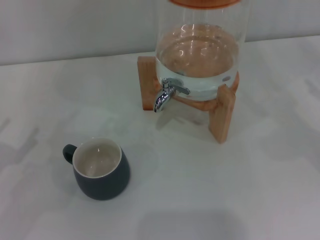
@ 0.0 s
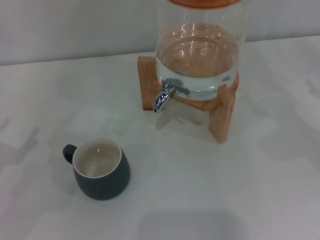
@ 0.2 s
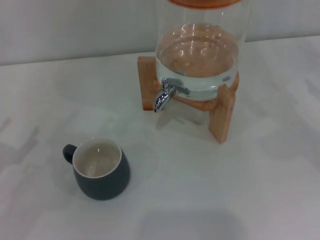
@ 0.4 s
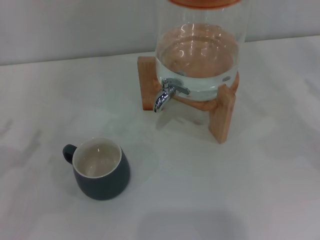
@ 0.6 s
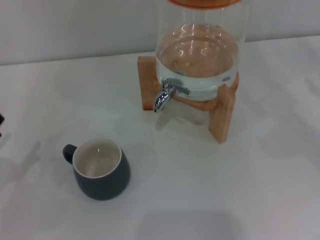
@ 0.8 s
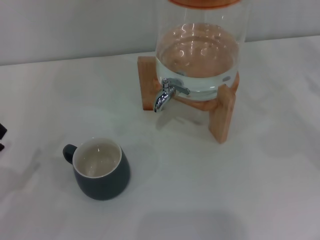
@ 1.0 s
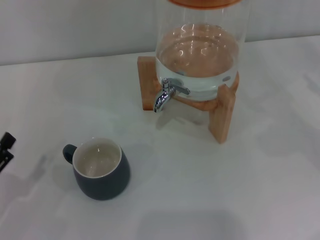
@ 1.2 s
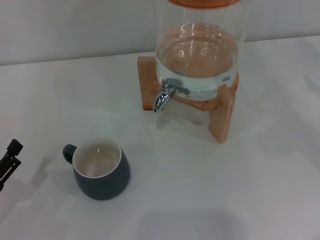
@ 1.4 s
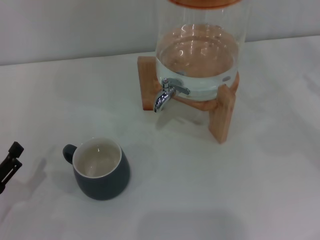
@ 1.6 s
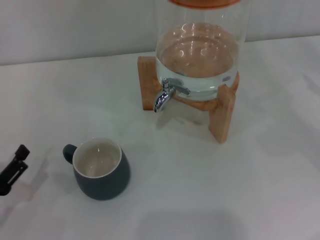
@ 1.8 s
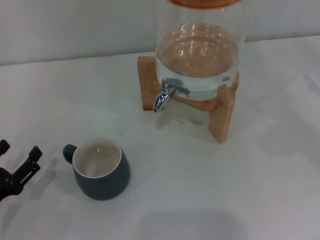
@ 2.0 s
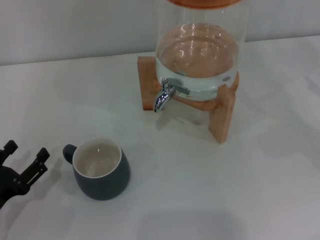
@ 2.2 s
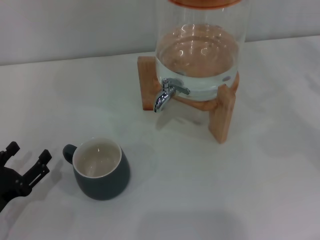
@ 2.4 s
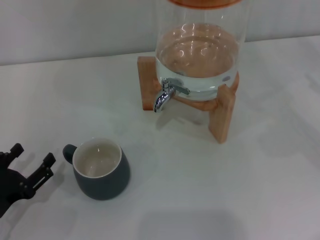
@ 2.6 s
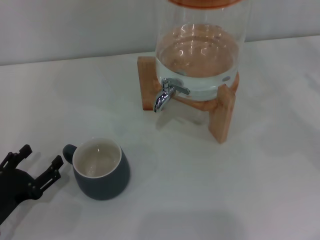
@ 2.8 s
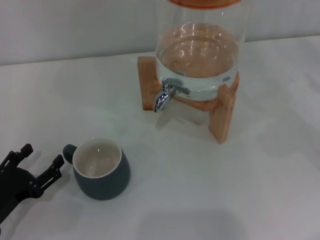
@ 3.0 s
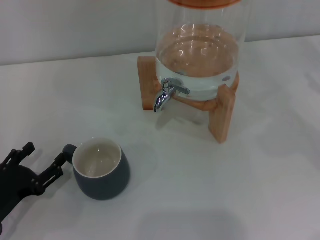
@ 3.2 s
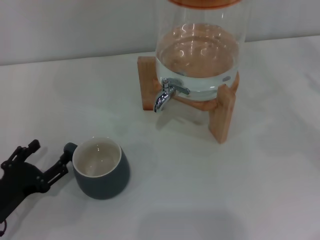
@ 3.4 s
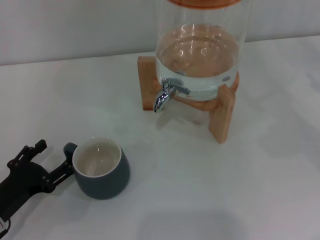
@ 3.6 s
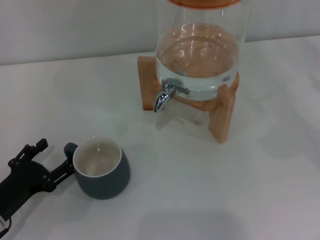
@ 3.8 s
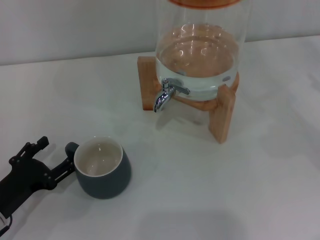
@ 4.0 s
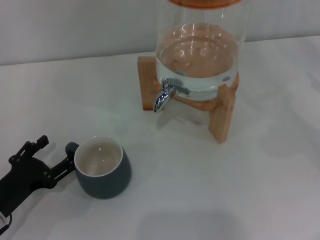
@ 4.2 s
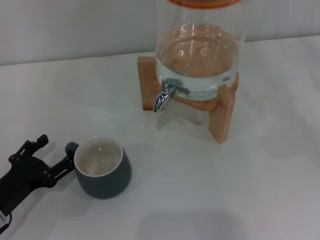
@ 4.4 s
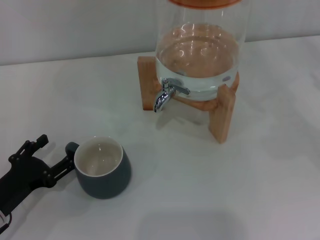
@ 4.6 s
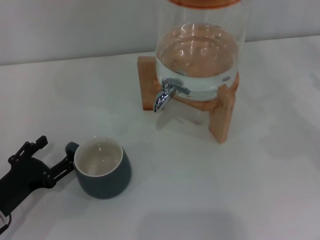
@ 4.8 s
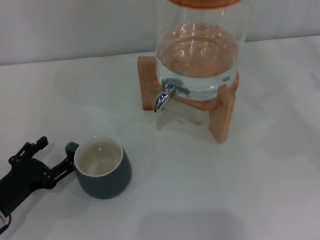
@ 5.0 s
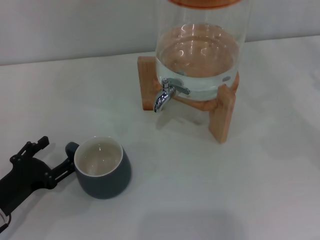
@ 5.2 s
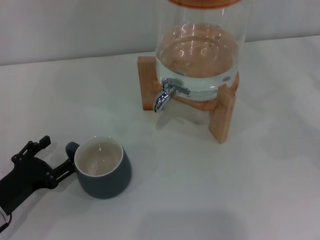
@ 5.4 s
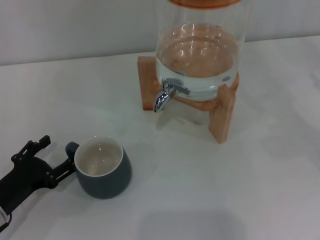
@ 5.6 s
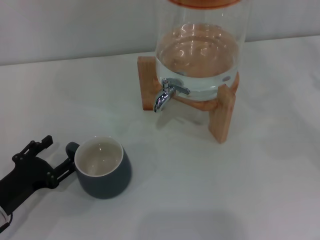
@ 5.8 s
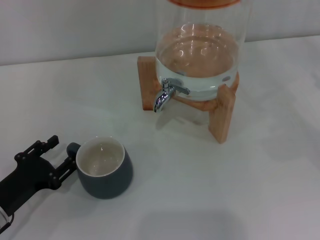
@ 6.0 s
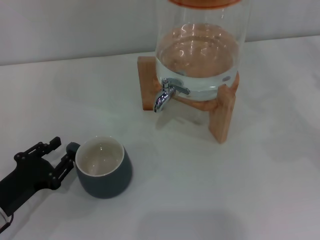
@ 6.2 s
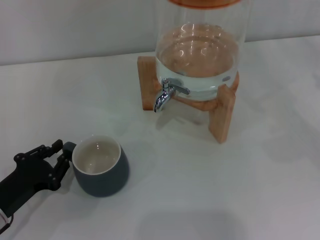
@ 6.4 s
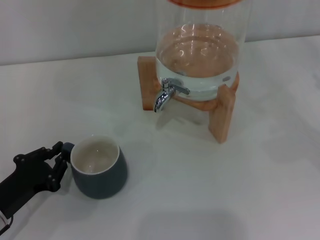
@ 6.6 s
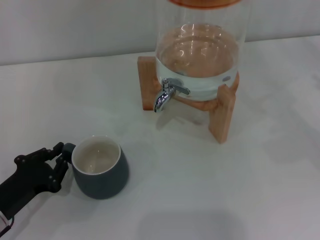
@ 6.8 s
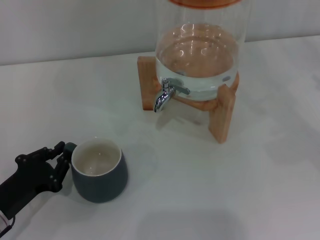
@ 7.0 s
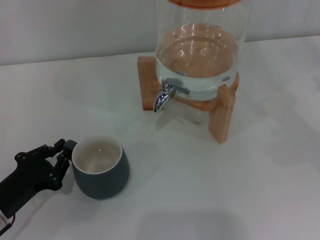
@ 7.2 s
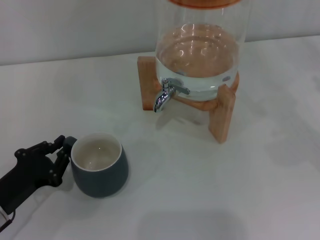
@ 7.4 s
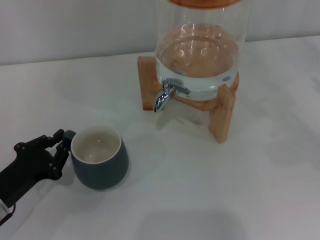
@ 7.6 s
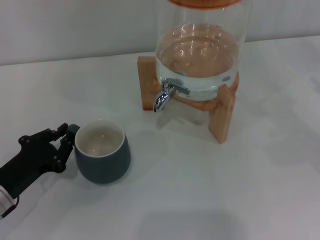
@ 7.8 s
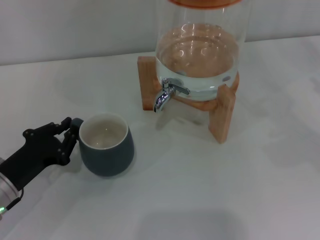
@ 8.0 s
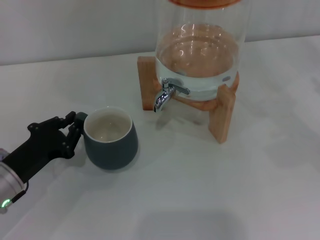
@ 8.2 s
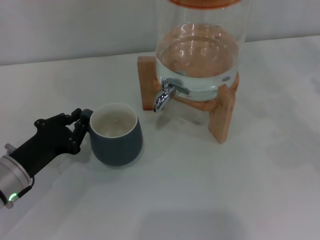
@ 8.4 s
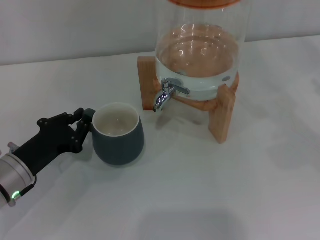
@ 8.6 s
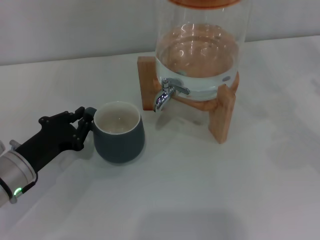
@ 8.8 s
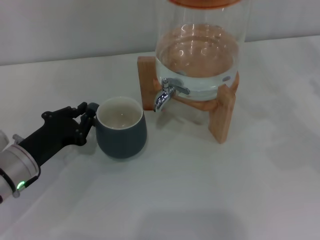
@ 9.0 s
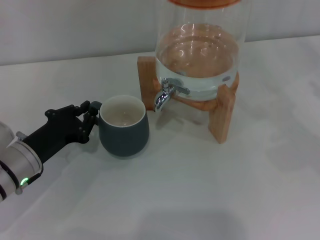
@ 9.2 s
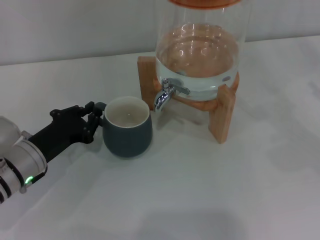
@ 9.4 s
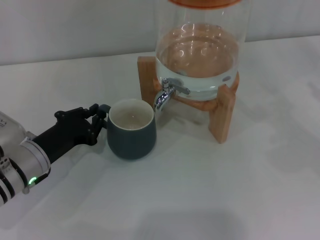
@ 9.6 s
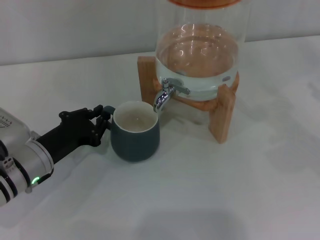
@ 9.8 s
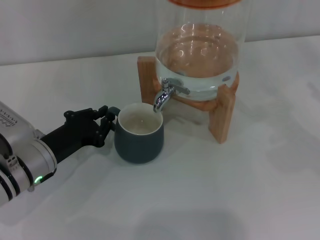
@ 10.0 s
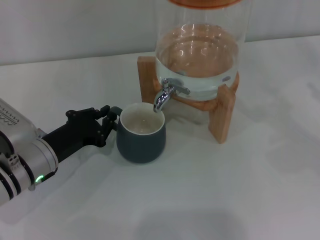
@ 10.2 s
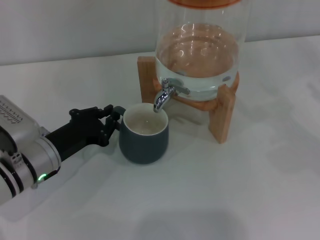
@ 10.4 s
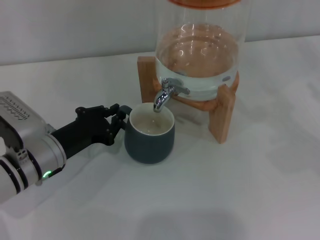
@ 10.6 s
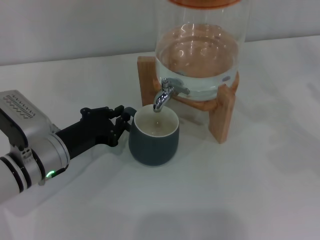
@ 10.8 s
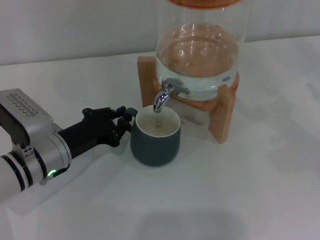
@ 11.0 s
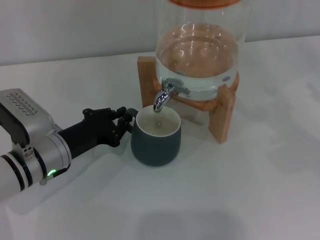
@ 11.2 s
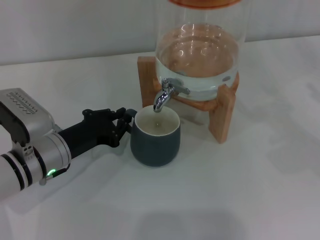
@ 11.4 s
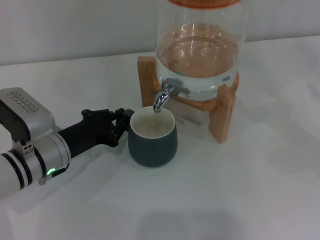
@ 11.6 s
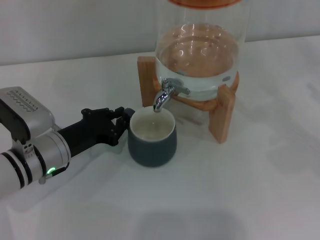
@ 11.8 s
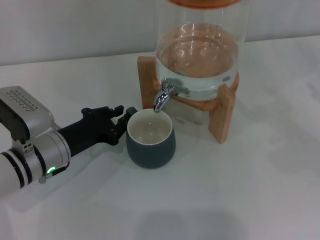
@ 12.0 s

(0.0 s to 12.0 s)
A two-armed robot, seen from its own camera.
Task of the whole recording: the left gripper pick up the black cup and place it horizontally under the faucet, the right gripper turn on the faucet to fill the cup, and then turn off the faucet.
0.0 s - 1.6 s: The left gripper goes about 10 cm downward and backward.
1.6 s - 3.0 s: The grippers move only a little.
3.0 s - 4.4 s: The grippers make only small movements.
4.4 s - 6.0 s: Both grippers stay put.
6.0 s - 7.6 s: The left gripper closes.
7.6 s - 9.0 s: The left gripper goes some 5 cm forward.
9.0 s - 12.0 s: The grippers stay close to where they were, moving slightly.

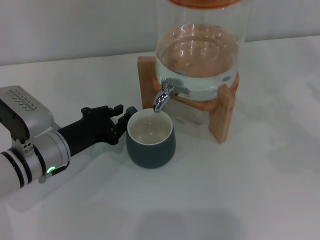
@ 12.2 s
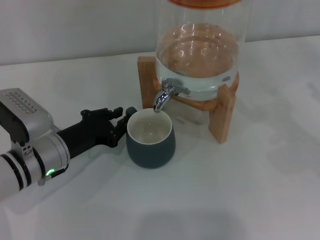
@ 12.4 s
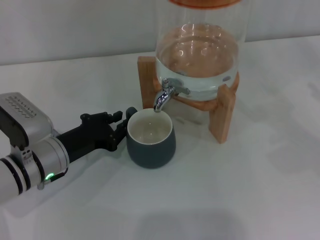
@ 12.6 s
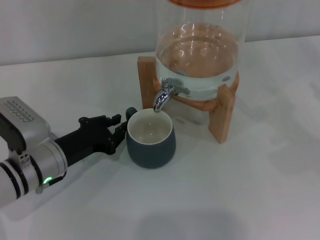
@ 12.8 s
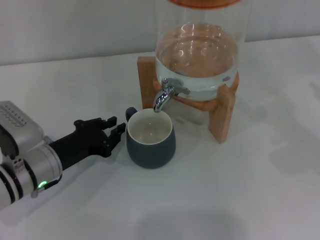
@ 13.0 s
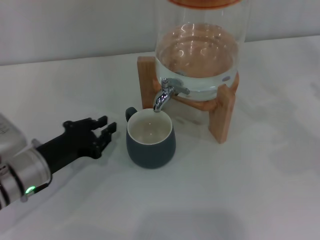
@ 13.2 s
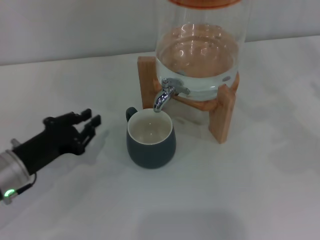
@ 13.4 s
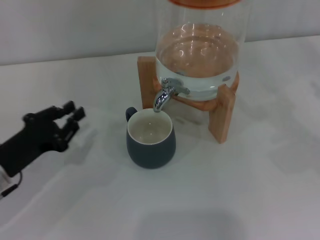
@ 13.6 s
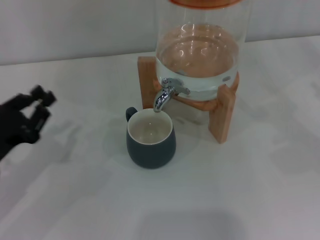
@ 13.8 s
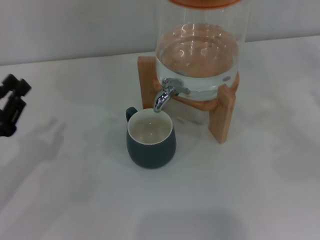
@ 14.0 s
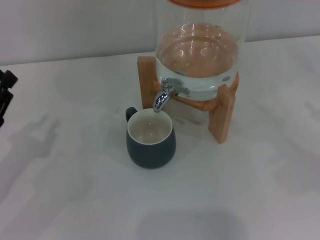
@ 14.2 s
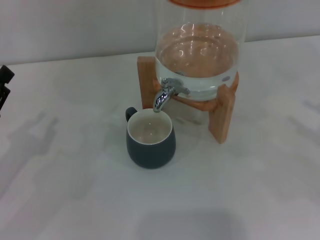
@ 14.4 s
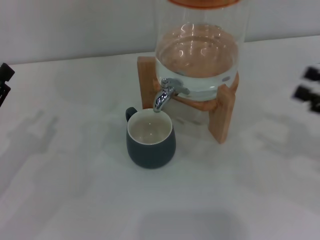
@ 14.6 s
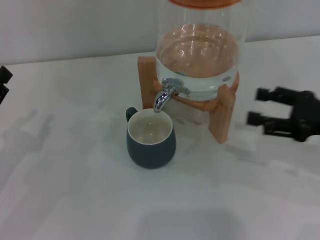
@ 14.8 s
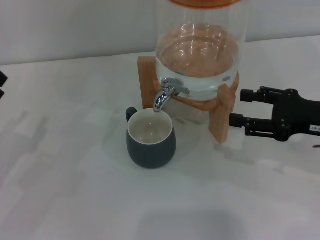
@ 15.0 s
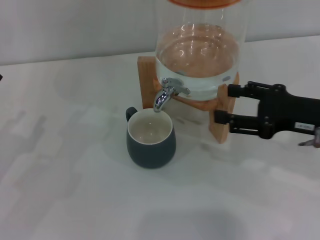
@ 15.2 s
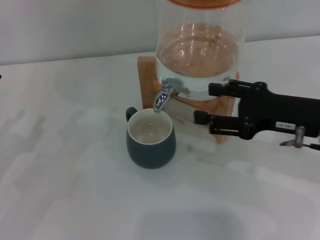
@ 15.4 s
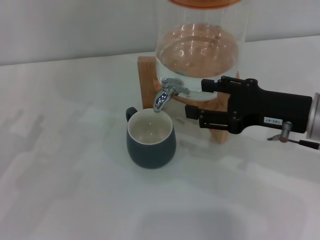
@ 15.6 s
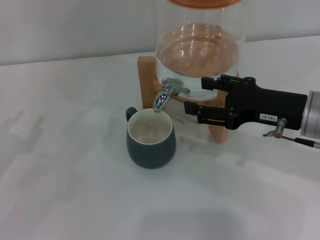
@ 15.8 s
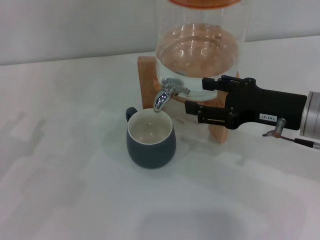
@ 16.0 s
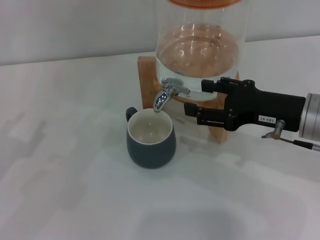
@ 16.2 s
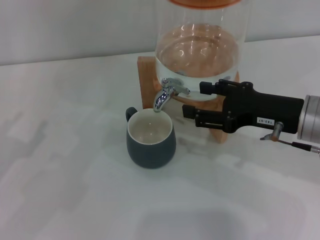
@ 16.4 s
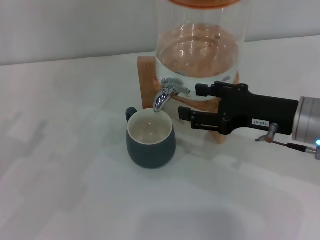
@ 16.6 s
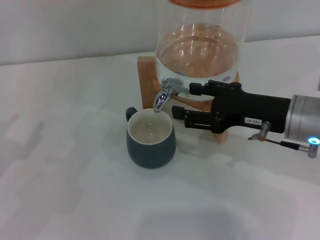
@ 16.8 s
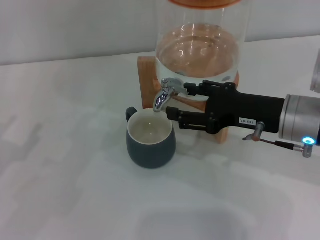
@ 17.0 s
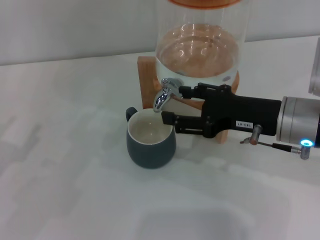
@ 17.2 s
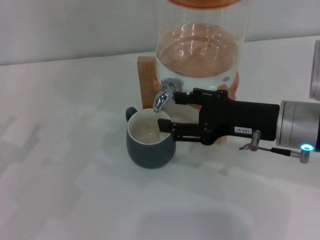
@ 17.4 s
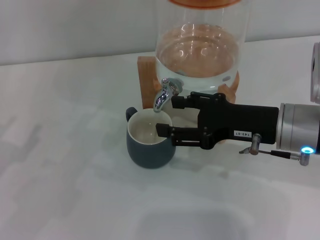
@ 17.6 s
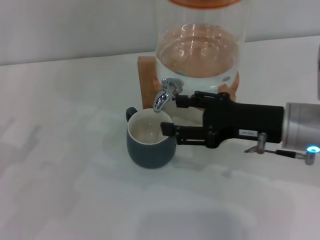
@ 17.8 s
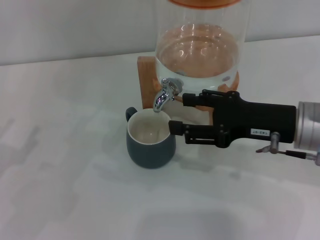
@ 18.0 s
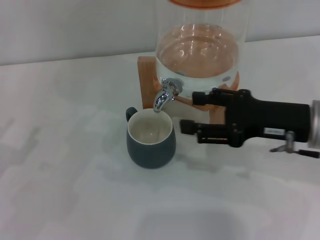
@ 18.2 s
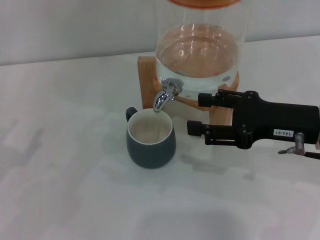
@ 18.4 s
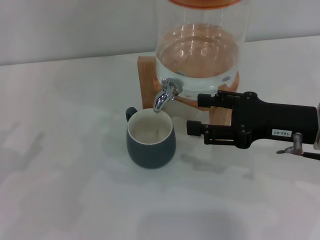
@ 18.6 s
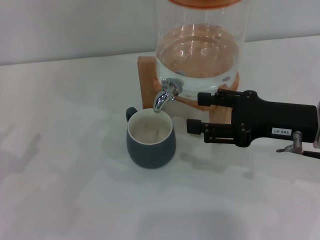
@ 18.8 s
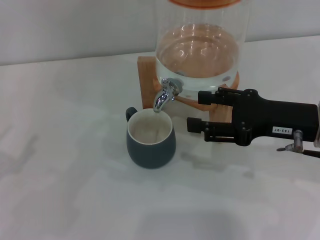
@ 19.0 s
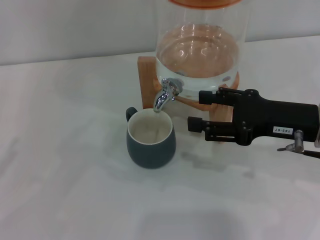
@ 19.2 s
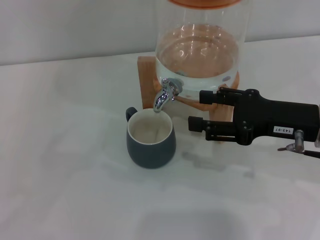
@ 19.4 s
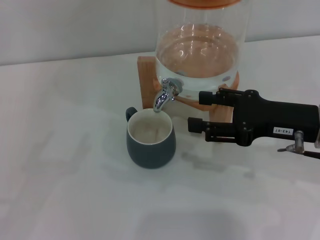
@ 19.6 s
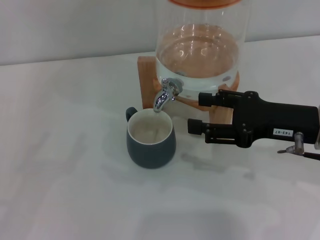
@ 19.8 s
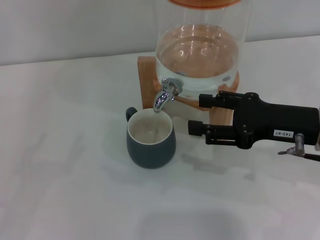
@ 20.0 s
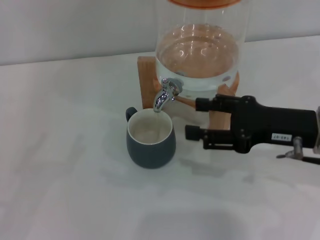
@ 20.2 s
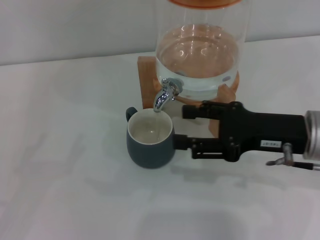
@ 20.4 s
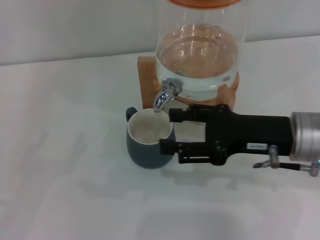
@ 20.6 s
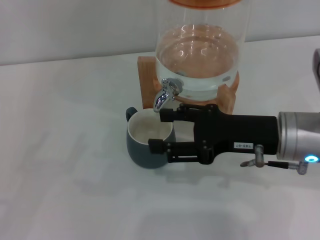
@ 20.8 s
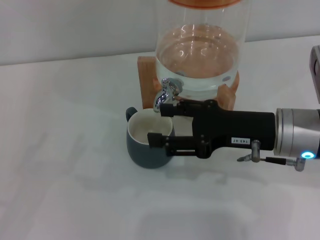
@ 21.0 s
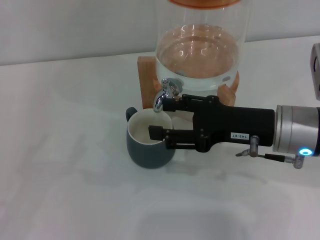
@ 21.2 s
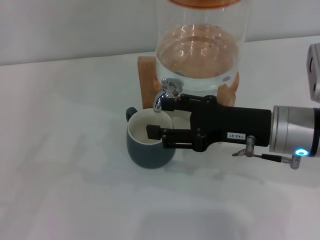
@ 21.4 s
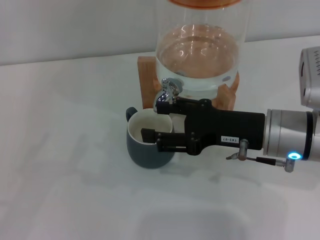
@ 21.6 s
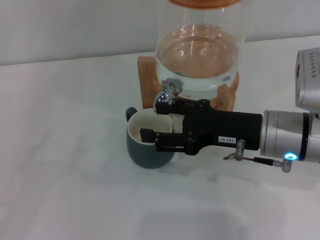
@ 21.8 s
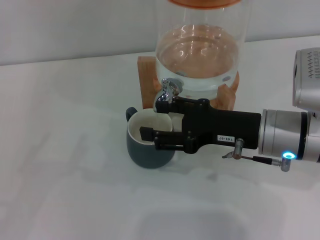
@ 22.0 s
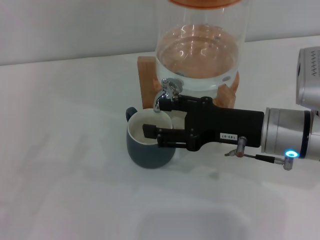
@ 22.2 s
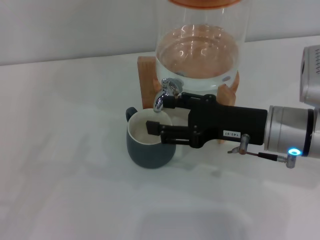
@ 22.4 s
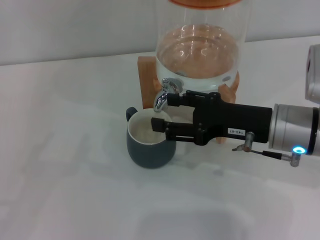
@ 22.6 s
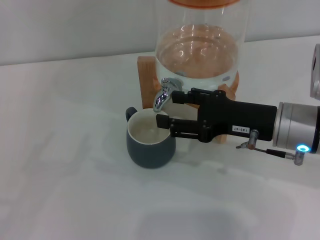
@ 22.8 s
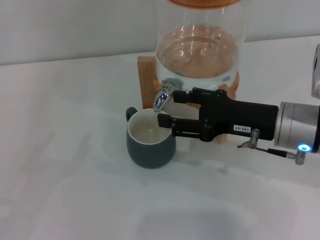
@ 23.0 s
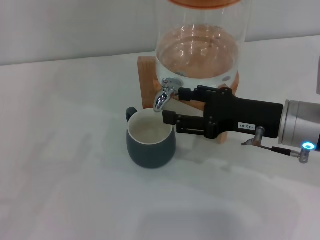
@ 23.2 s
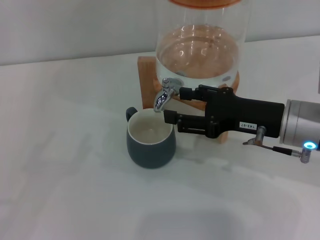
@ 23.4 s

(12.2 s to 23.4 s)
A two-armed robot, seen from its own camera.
Task of the whole recording: the left gripper pick up the black cup and place it horizontally under the faucet, the right gripper turn on the faucet to fill the cup, and then turn off the faucet.
Step, 13.4 s - 21.0 s: Open the dispenser valve and fill the cup with water with the right gripper.
12.2 s - 13.8 s: The left gripper heads to the left and backward, covering approximately 10 cm.
13.8 s - 15.4 s: The right gripper is displaced to the left by roughly 20 cm; the left gripper opens.
15.4 s - 18.6 s: The grippers move only a little.
18.6 s - 20.2 s: The left gripper ends up about 5 cm from where it was.
20.2 s - 21.8 s: The right gripper is displaced to the left by approximately 5 cm.
21.8 s - 23.4 s: The grippers make only small movements.
